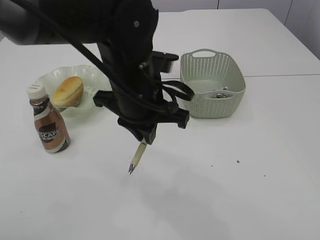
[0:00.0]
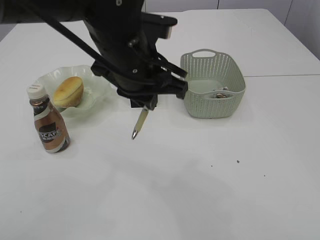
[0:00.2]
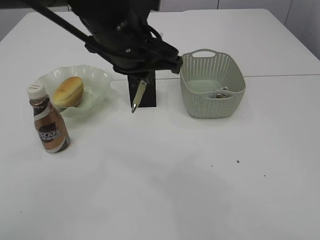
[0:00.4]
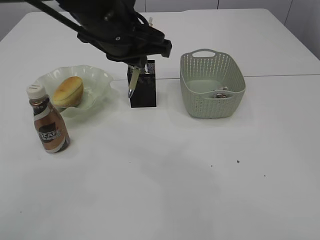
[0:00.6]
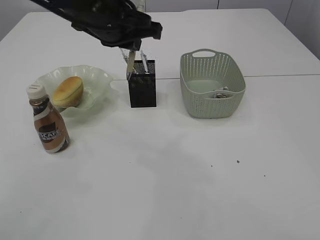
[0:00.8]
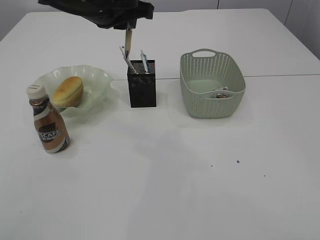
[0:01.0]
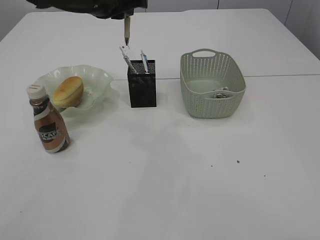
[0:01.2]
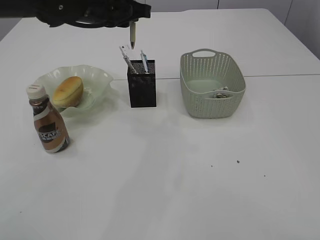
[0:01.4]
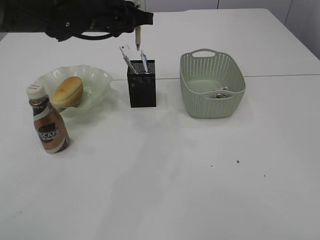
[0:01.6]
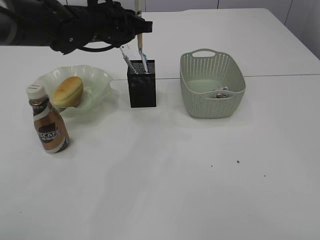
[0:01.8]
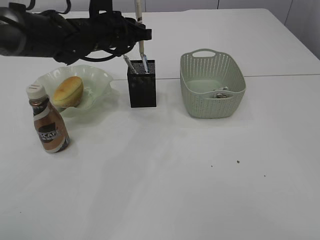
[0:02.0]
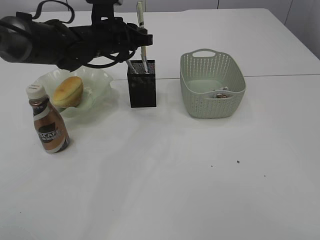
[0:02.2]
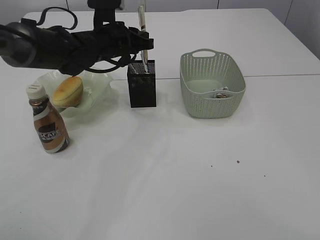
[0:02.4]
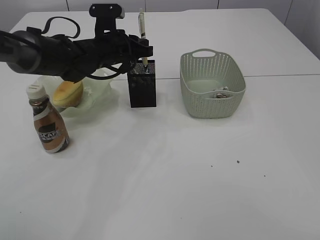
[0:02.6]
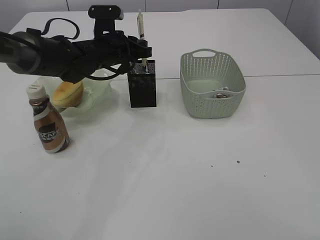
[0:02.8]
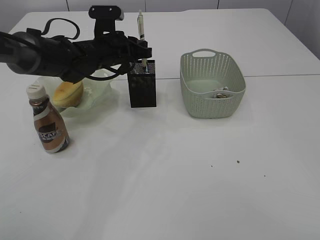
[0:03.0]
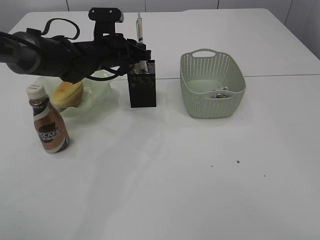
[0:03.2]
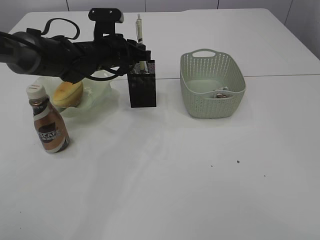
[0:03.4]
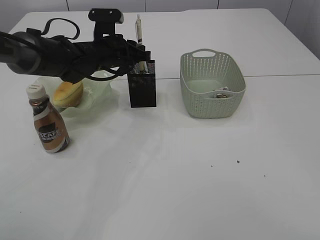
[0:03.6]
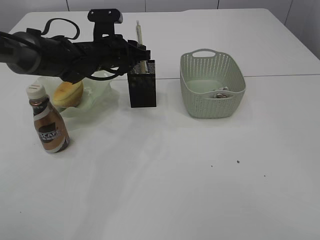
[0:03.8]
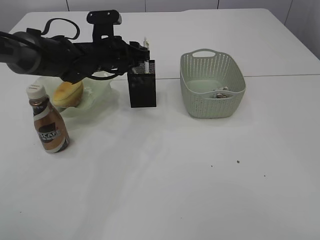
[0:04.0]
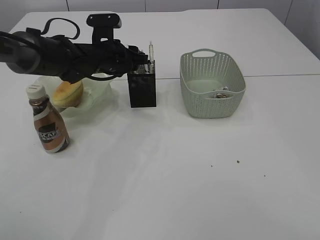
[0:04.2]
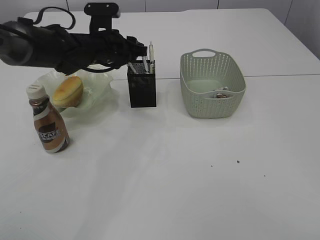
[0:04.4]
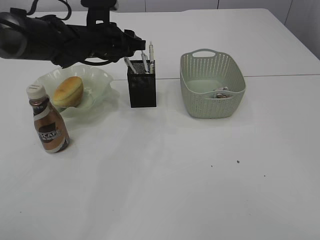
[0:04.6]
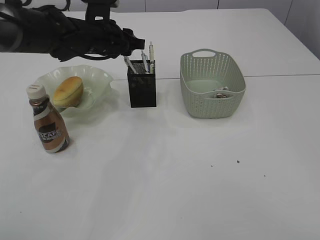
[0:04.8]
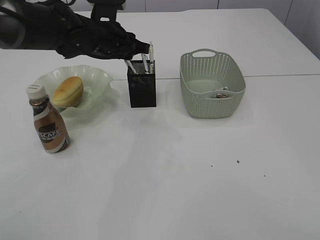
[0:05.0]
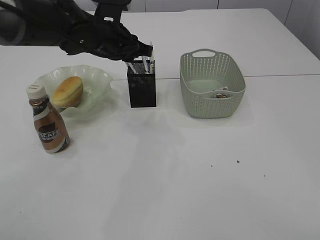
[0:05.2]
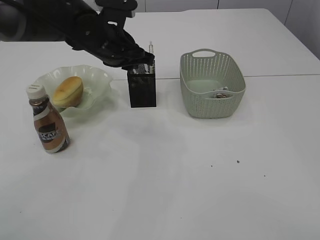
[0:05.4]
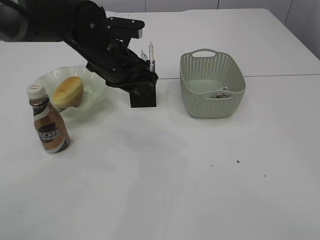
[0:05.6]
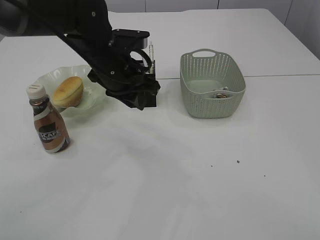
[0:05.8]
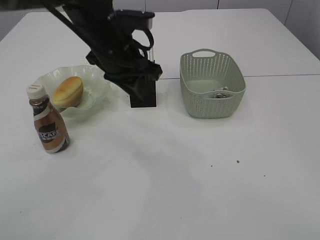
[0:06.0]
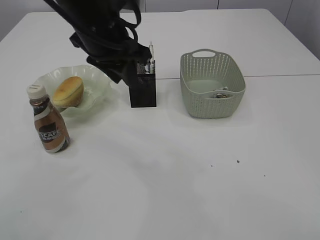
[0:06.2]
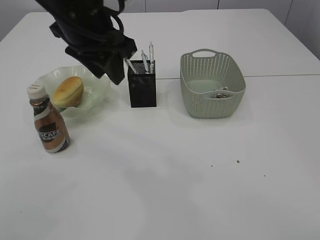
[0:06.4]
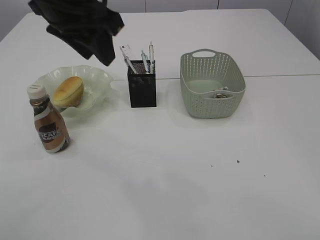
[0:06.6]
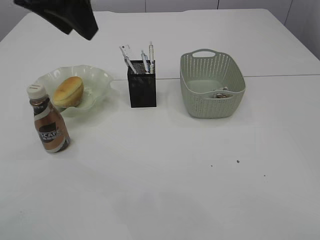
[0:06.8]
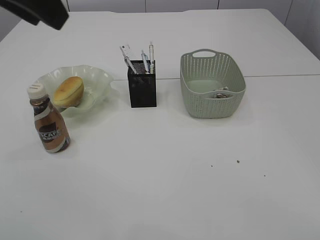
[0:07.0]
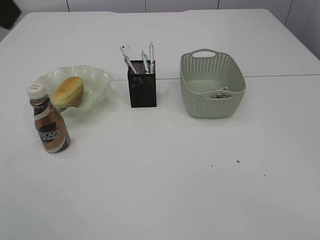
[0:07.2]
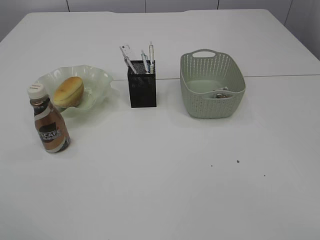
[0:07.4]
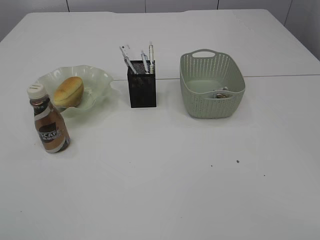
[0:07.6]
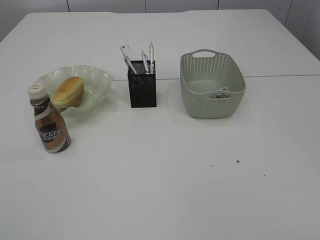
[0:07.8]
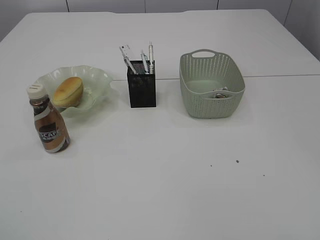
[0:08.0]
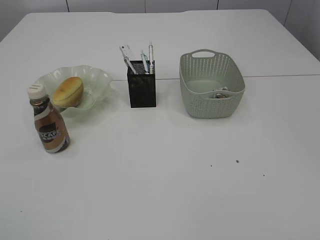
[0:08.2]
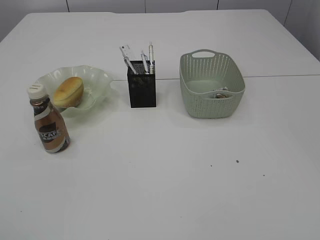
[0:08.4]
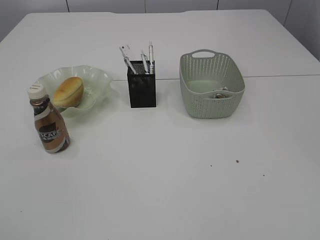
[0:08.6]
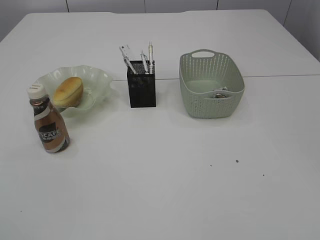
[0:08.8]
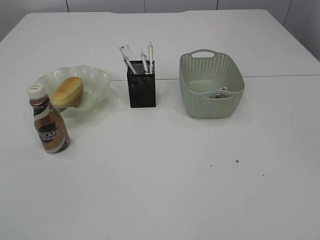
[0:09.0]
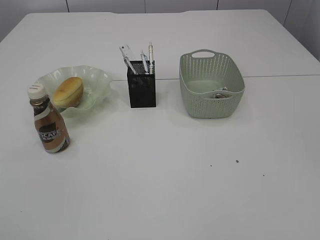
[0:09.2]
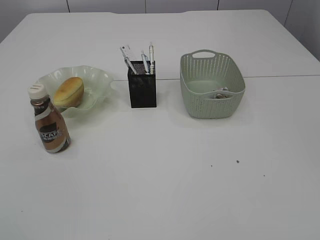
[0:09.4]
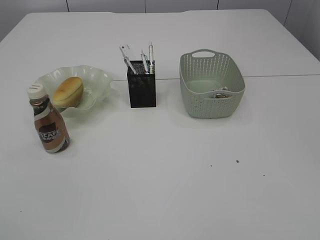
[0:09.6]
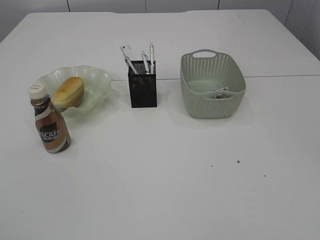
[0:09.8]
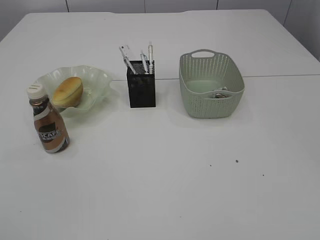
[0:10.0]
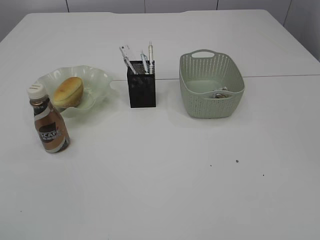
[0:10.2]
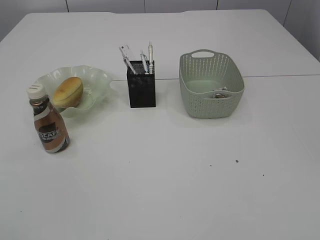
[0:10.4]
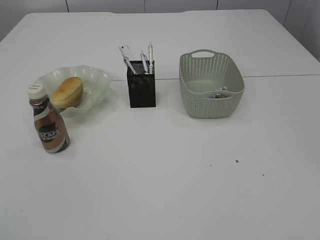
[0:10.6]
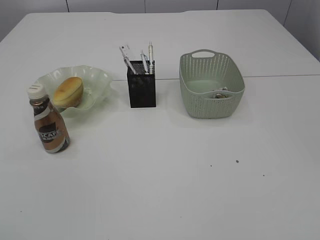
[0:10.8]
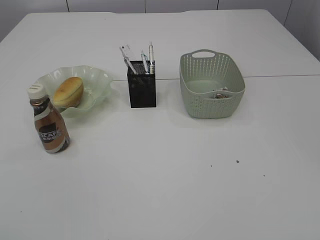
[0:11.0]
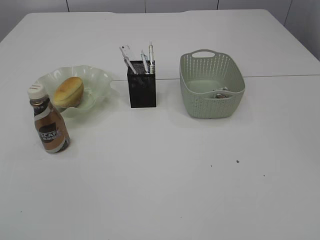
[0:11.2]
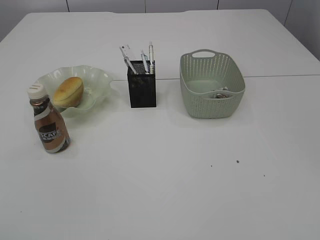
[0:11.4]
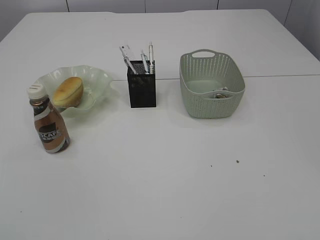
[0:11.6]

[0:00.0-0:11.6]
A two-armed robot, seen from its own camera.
Step, 0:00.0 to 0:04.8: Place the pen into the pen holder.
0:00.0 to 0:01.4: The left gripper shifts some 15 cm forward, to the left and upward.
0:01.4 to 0:02.8: The left gripper is displaced downward and forward by some 15 cm.
0:02.8 to 0:04.4: The left gripper opens up.
0:04.4 to 0:05.8: The left gripper goes roughly 10 cm backward.
0:05.8 to 0:07.2: The left gripper heads upward, backward and to the left, covering about 30 cm.
0:07.2 to 0:08.8: The left gripper travels backward, downward and to the left by approximately 30 cm. Meanwhile the right gripper travels downward and backward by some 15 cm.
